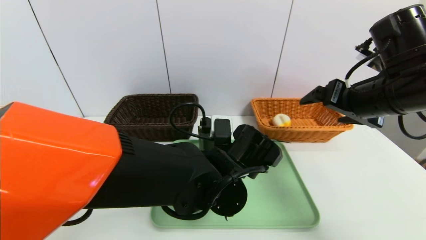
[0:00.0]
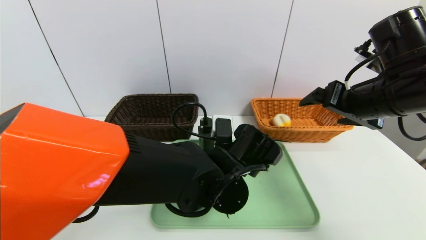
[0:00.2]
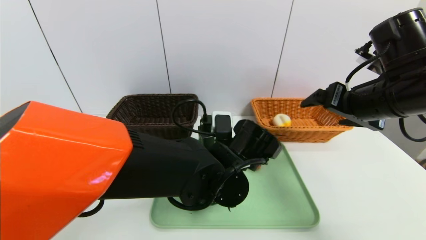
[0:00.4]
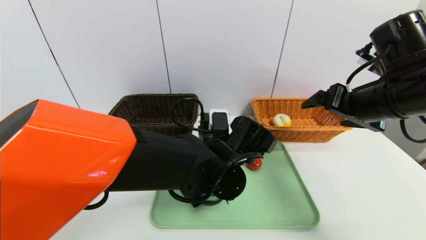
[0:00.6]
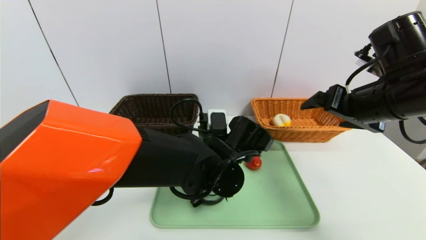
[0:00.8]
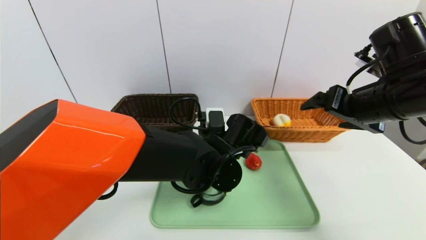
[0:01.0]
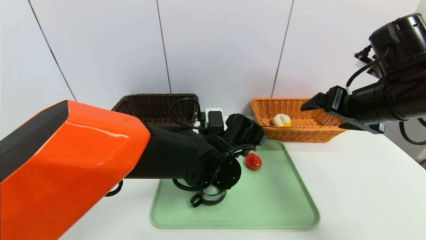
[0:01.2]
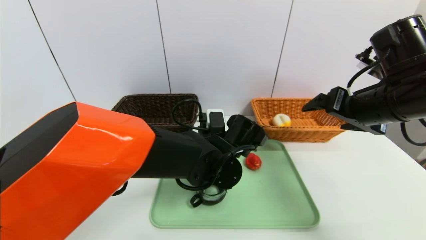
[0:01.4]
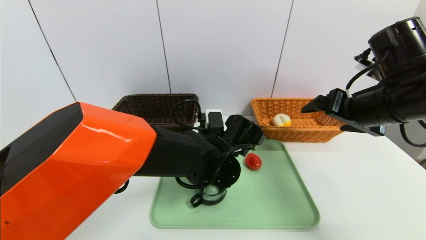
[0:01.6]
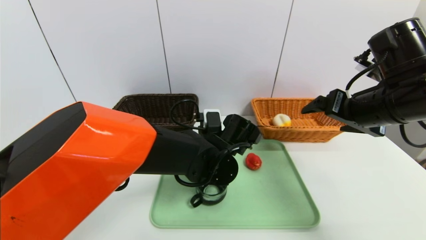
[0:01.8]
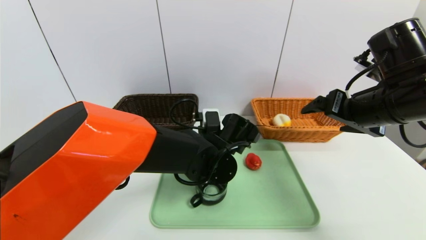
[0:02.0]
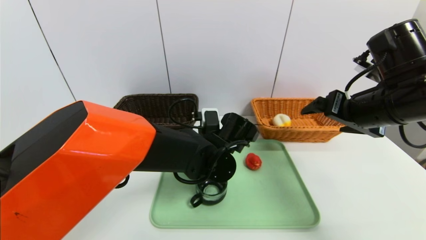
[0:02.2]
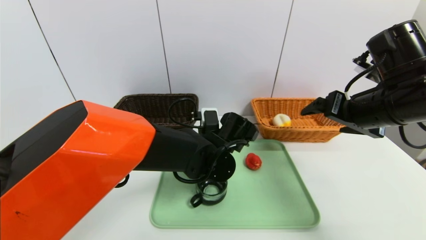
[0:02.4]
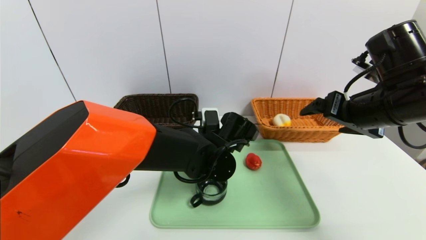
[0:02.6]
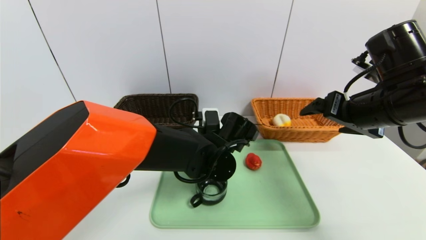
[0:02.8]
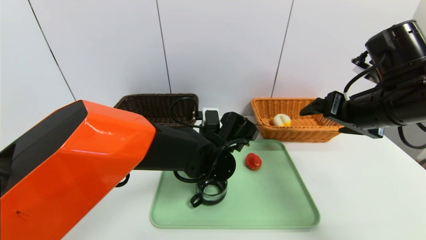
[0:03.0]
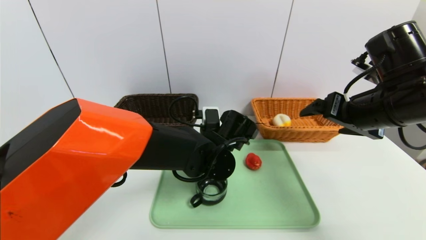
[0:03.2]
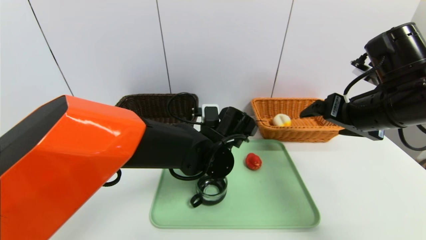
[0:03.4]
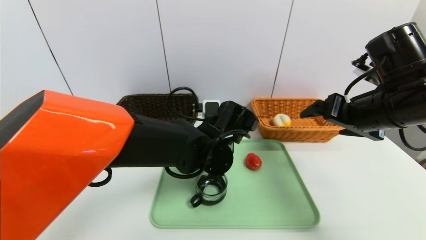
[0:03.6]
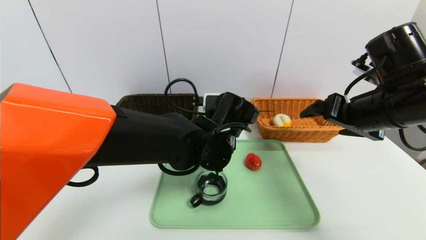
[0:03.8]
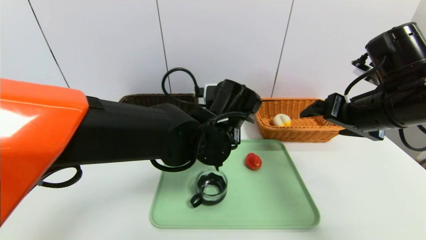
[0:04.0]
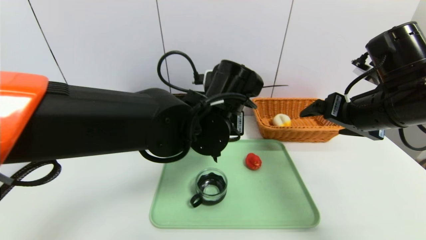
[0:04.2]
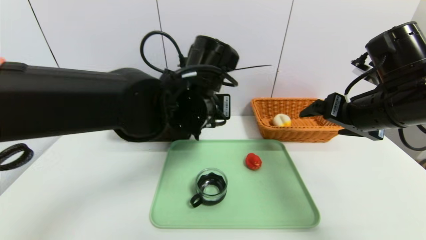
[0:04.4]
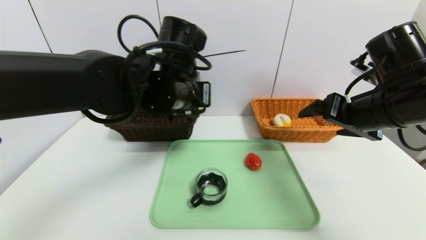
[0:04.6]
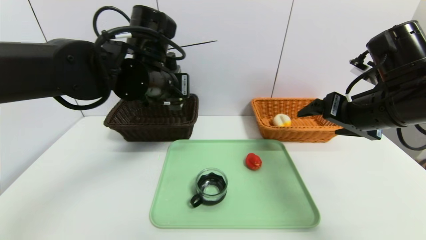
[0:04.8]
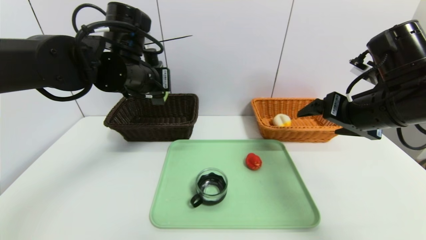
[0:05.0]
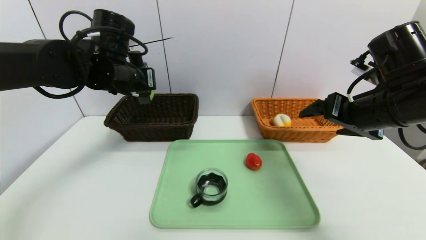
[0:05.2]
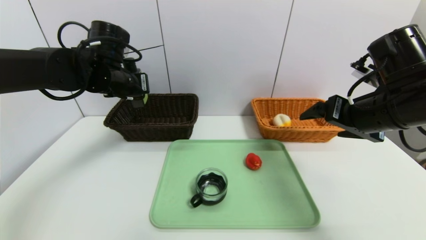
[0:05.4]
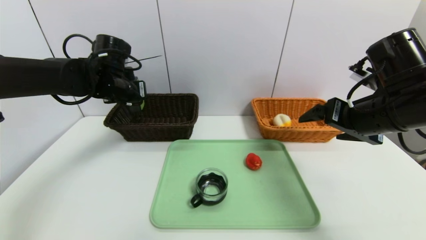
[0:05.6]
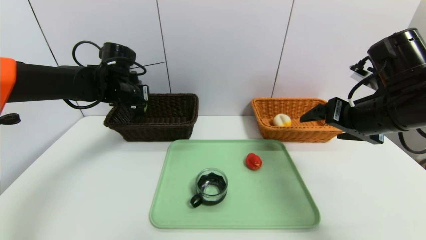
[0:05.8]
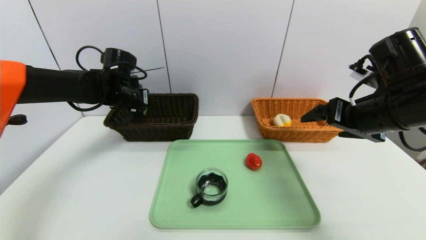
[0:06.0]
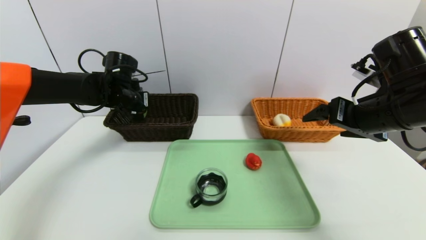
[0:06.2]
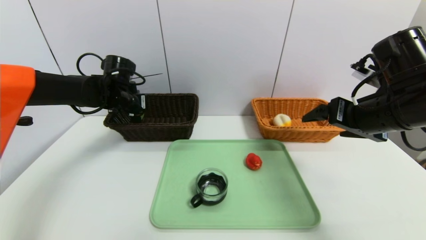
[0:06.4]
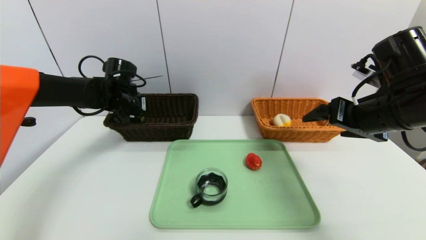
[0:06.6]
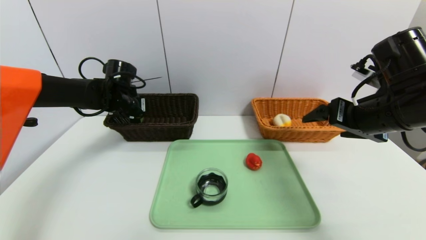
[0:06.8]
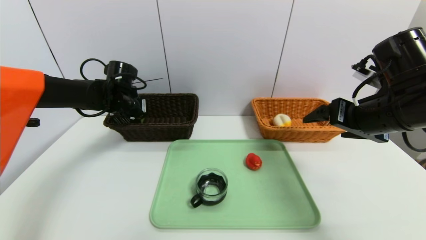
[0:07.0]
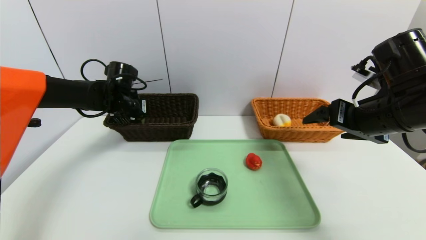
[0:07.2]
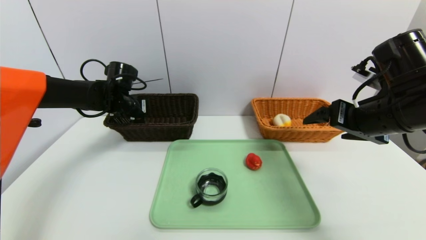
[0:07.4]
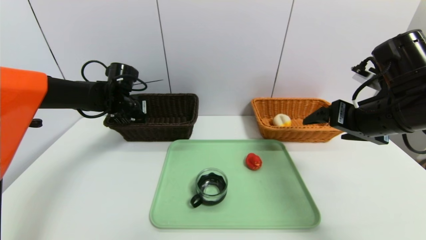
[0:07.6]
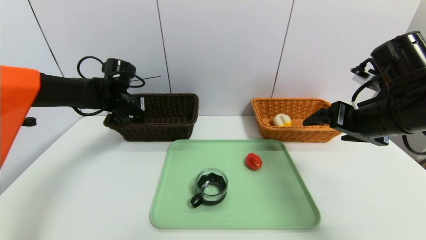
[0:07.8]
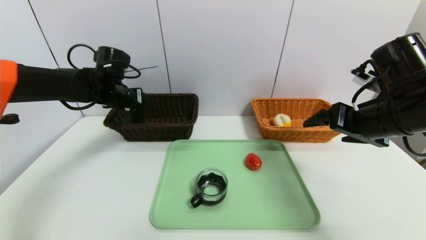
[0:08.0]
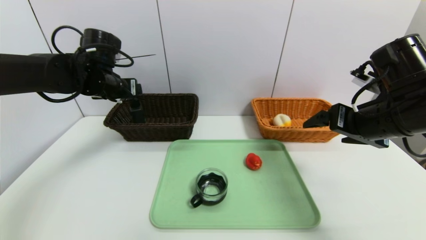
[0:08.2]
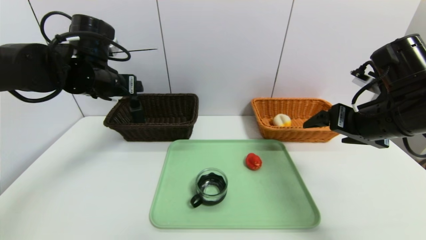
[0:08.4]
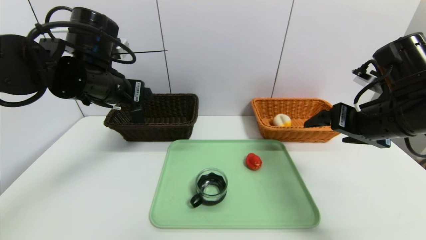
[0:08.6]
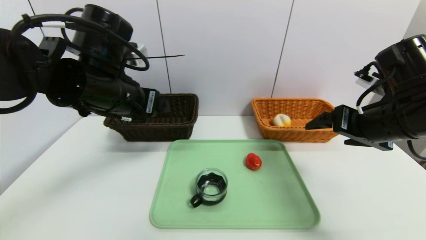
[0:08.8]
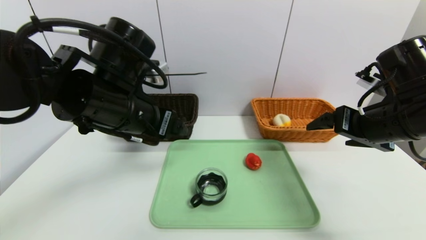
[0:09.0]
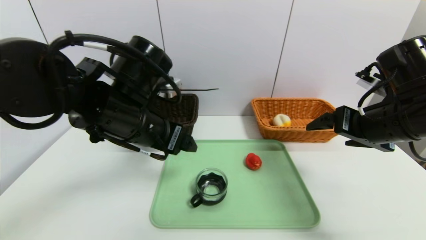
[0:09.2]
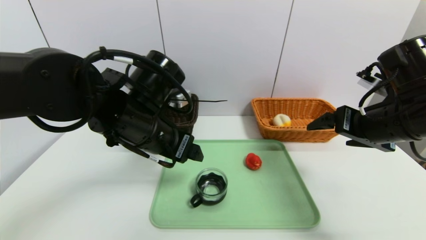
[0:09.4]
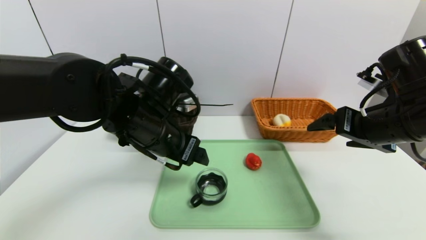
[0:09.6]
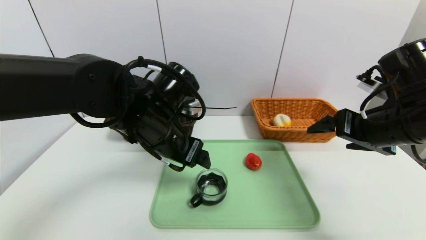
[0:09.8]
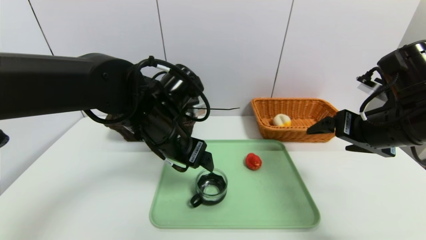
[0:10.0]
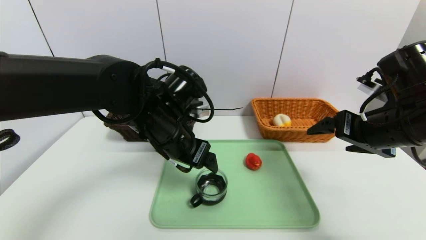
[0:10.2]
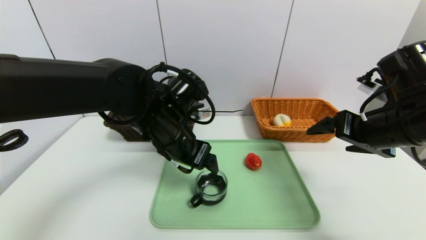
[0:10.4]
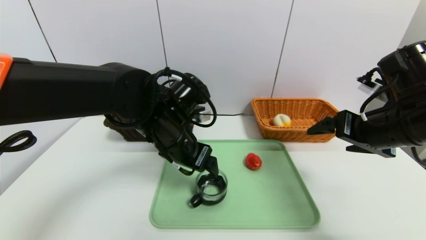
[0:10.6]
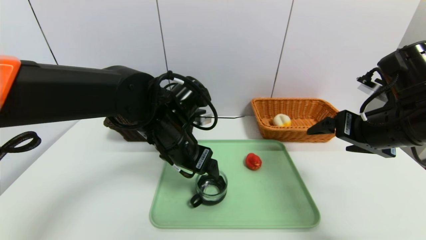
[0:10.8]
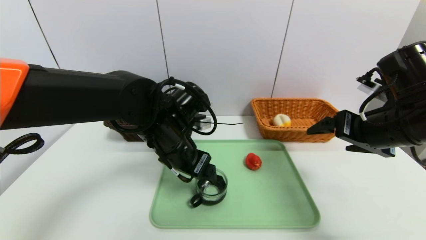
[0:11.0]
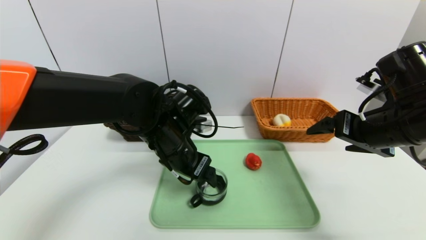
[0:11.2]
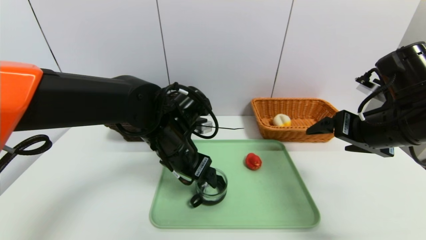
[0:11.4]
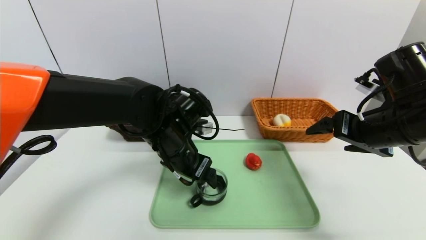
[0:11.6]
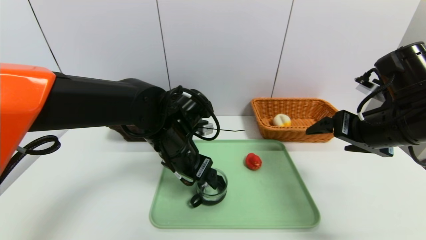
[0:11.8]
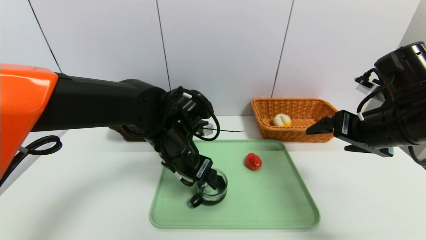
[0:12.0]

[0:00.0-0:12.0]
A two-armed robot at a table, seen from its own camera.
Task of the whole recording: place the food in the right basket with the right gripper, and place the non food items in the left basket with the left gripper.
Step, 0:00.0 to 0:07.6: Grasp the hard cleanser and put it in the left basket.
0:00.0 to 0:01.6: The left gripper shifts approximately 5 cm forward.
0:01.6 to 0:03.0: The left gripper closes.
0:03.0 to 0:04.4: The left gripper travels upward by about 15 cm.
0:04.4 to 0:06.0: The left gripper is displaced to the left and forward by roughly 25 cm.
0:06.0 to 0:07.6: The left gripper opens its fingers.
0:07.6 to 0:09.0: The left gripper travels backward, to the right and upward by roughly 25 cm.
0:09.0 to 0:10.4: The left gripper moves downward and to the right, some 10 cm.
0:10.4 to 0:12.0: The grippers move only a little.

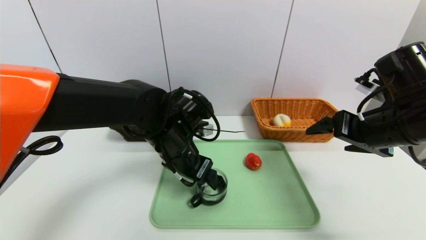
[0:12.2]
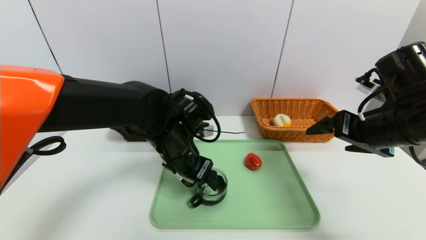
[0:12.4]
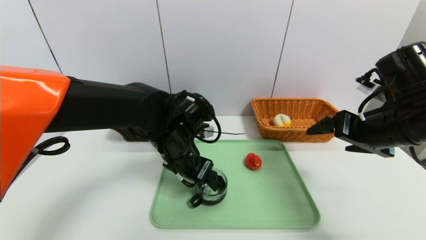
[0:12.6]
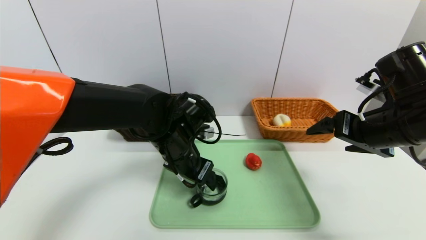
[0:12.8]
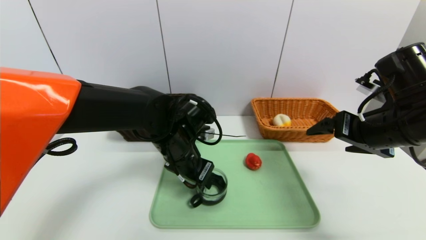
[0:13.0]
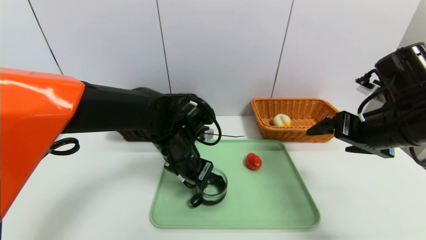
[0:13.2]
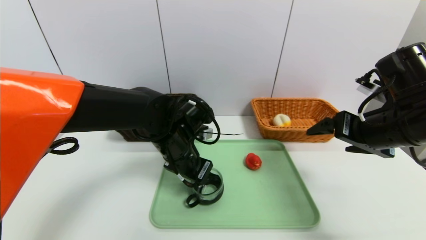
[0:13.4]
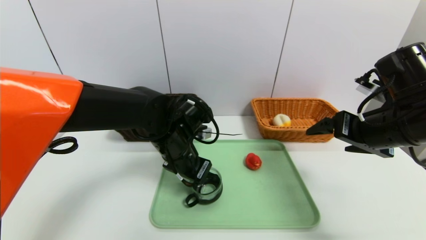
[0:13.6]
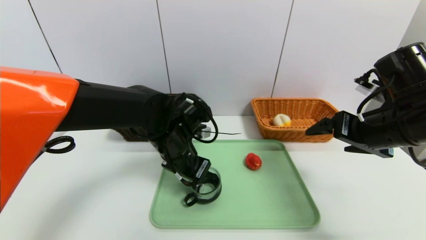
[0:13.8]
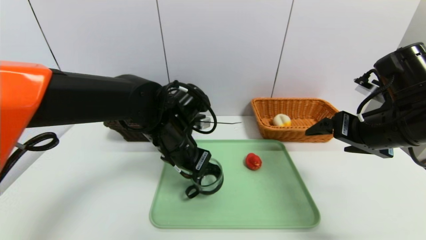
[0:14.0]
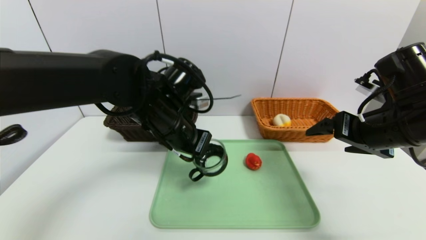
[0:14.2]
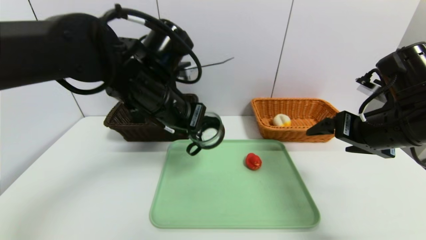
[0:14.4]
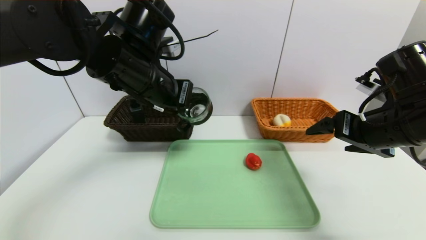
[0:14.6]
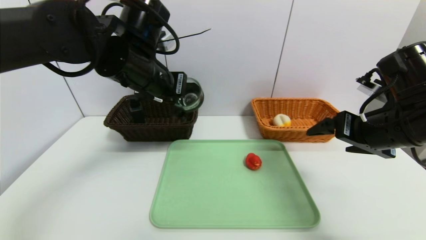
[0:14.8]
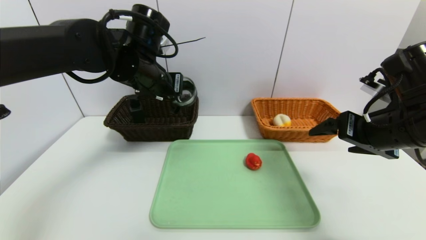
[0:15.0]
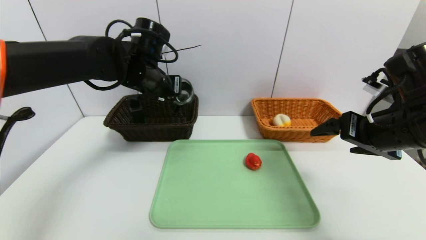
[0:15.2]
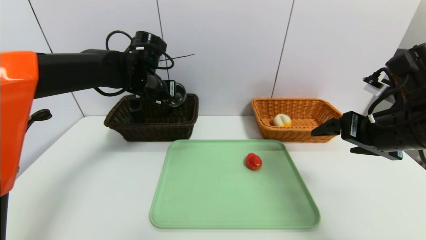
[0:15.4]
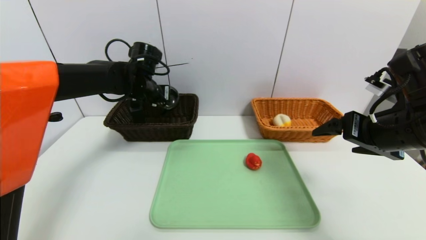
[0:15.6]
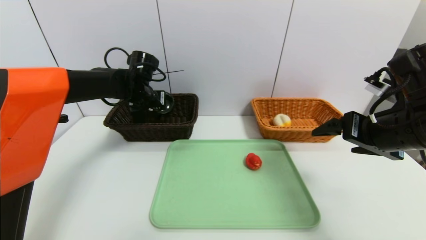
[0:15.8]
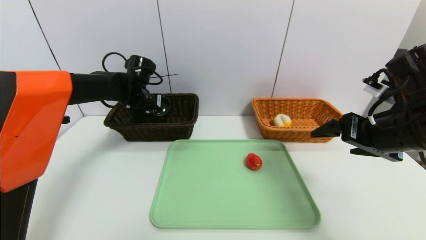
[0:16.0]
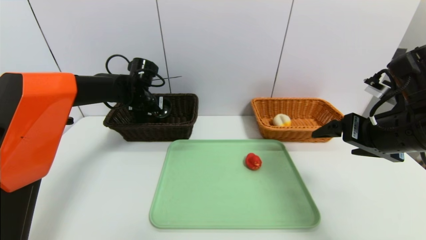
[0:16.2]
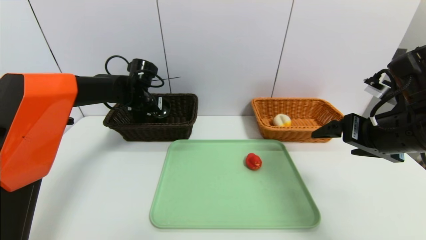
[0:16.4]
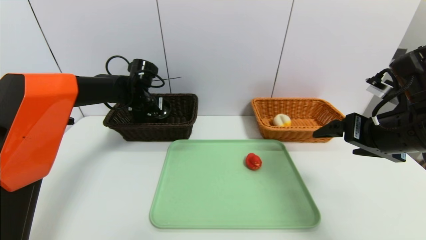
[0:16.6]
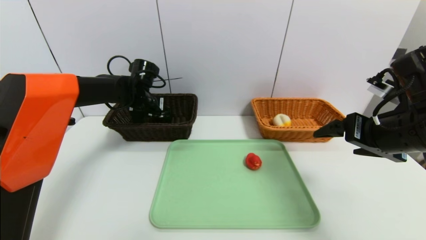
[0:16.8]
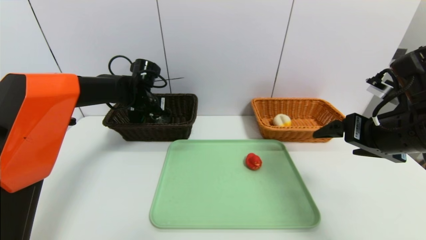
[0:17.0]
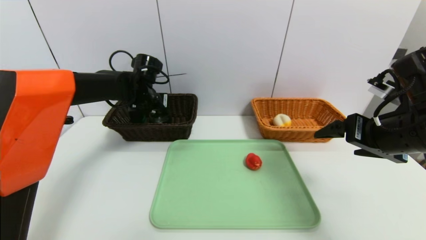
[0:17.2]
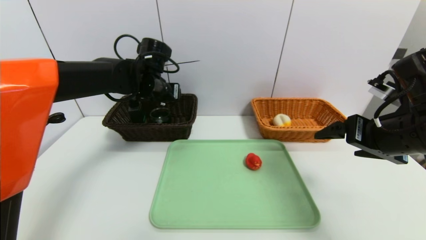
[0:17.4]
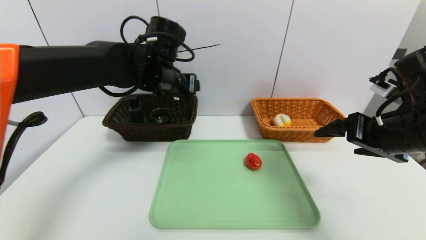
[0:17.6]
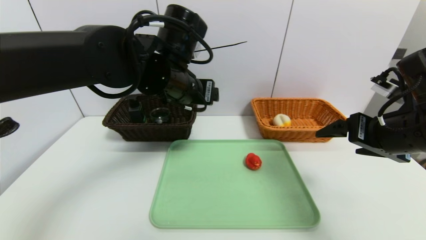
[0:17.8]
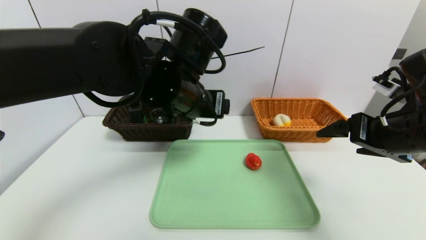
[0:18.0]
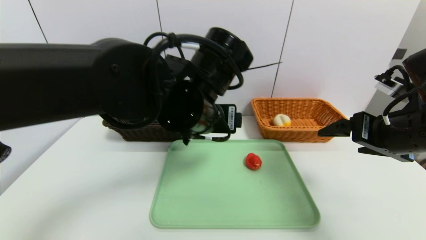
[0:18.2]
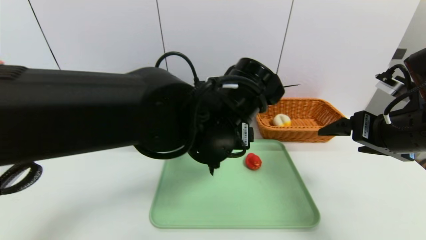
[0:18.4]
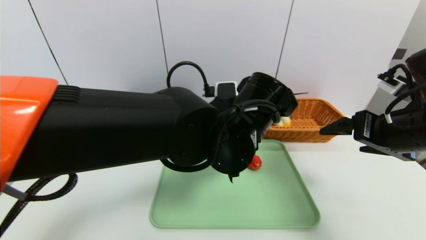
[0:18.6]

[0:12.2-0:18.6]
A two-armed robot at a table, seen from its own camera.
Task of the whole recording: place the food in the right basket with the right gripper, and place the non food items in the left basket with the left gripper.
Step, 0:12.2 to 0:17.2: Grasp the tea cup and put it in the left basket.
0:12.2 to 0:13.8: The left gripper closes up.
0:13.8 to 0:15.4: The left gripper moves forward, upward and to the left, roughly 15 cm.
0:15.4 to 0:17.0: The left gripper travels downward and forward by approximately 10 cm, and opens its fingers.
0:17.0 to 0:18.6: The left gripper shifts about 30 cm backward and to the right, and opens up.
